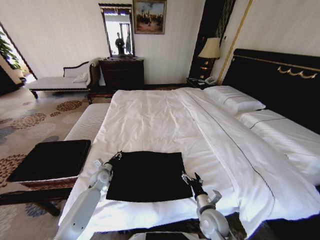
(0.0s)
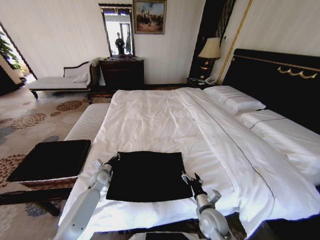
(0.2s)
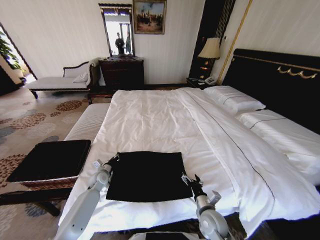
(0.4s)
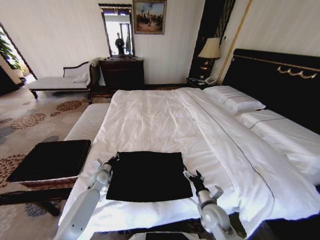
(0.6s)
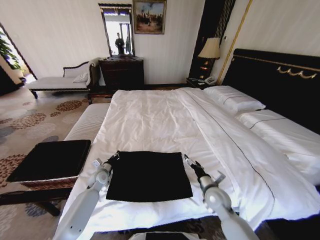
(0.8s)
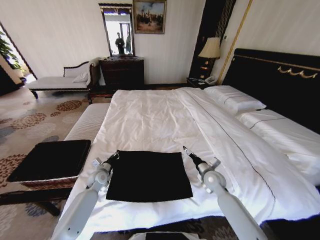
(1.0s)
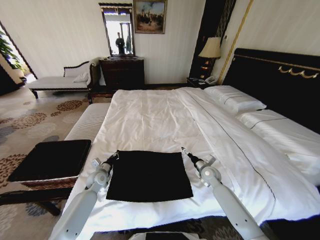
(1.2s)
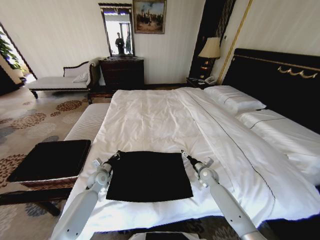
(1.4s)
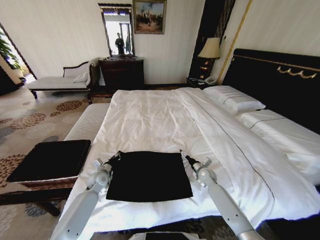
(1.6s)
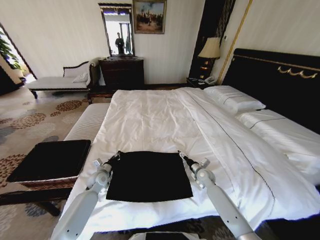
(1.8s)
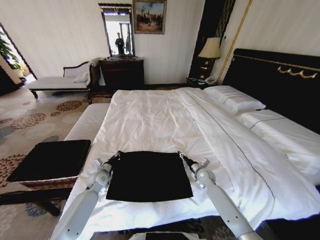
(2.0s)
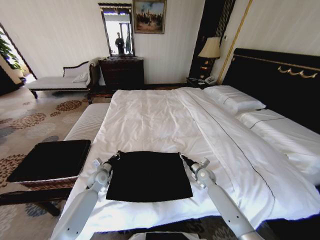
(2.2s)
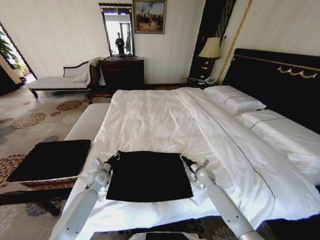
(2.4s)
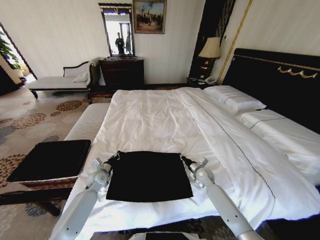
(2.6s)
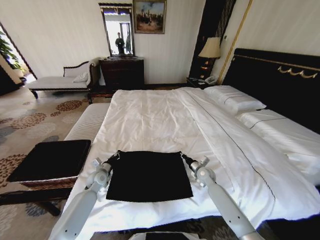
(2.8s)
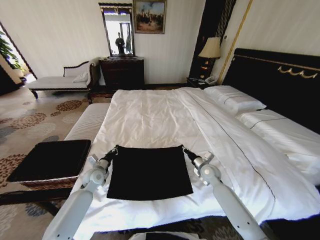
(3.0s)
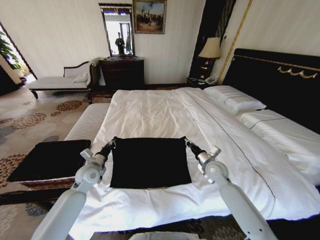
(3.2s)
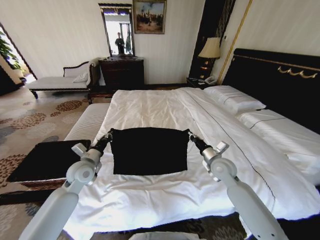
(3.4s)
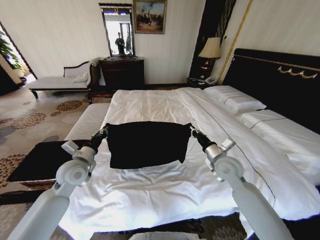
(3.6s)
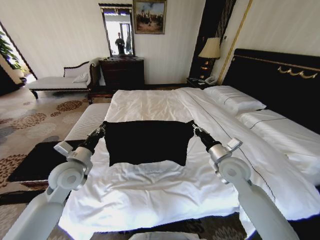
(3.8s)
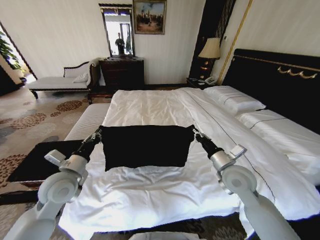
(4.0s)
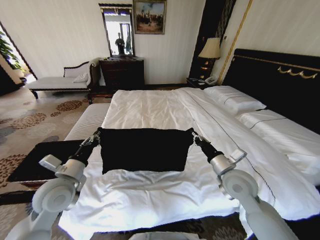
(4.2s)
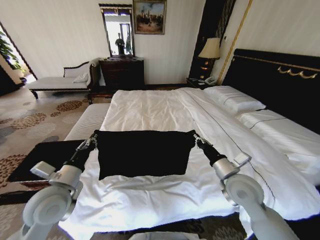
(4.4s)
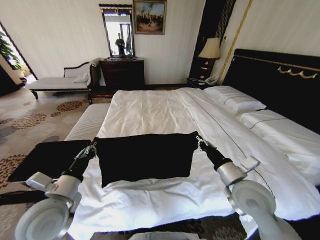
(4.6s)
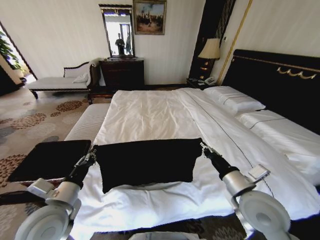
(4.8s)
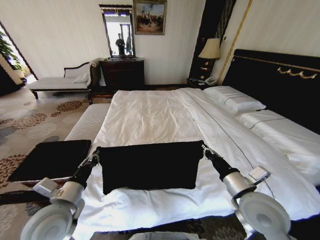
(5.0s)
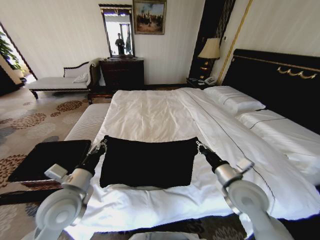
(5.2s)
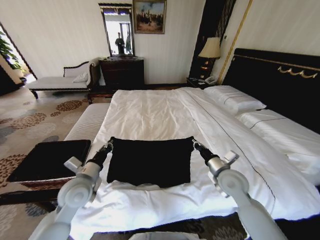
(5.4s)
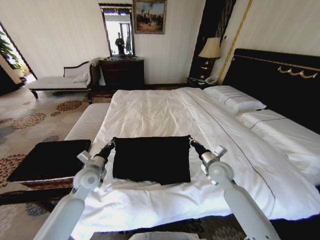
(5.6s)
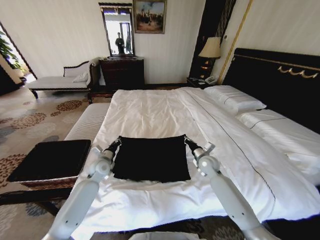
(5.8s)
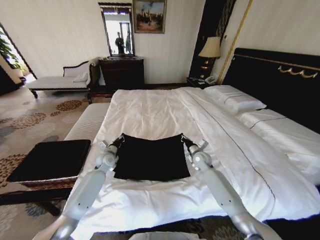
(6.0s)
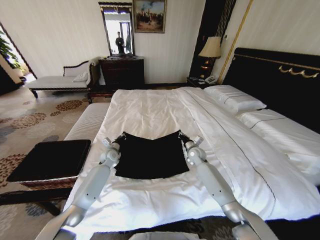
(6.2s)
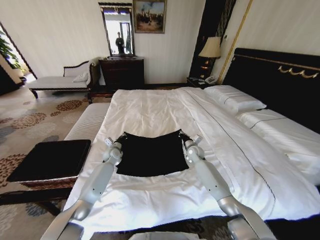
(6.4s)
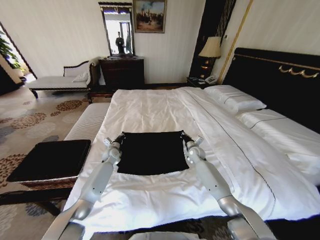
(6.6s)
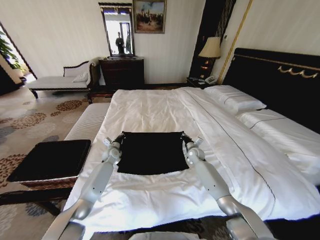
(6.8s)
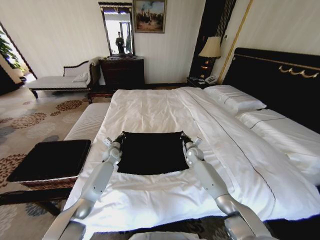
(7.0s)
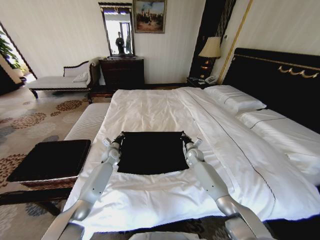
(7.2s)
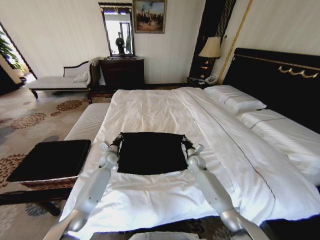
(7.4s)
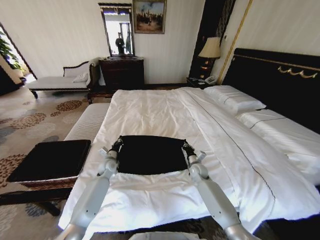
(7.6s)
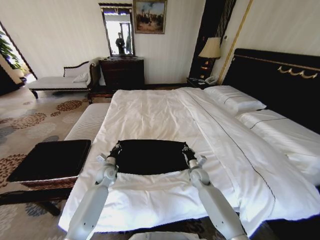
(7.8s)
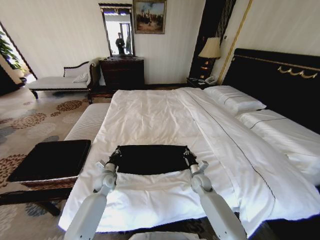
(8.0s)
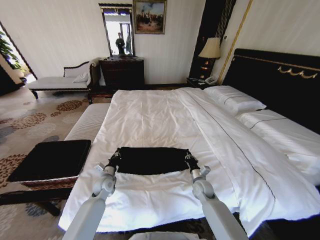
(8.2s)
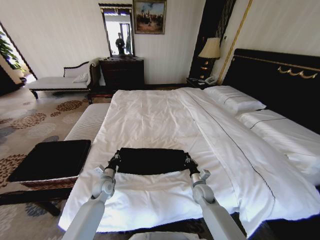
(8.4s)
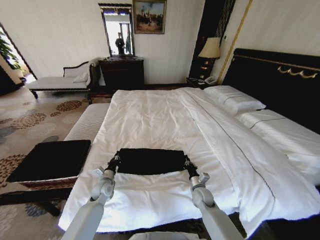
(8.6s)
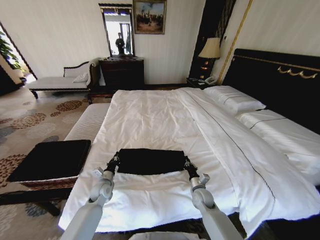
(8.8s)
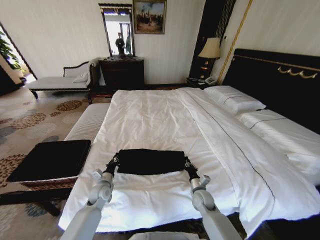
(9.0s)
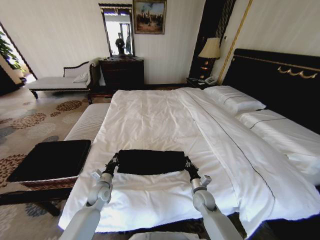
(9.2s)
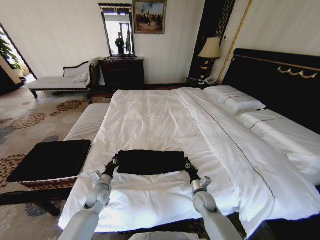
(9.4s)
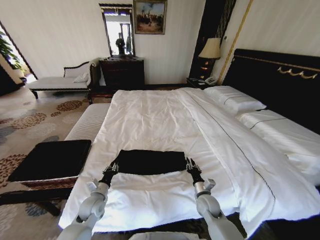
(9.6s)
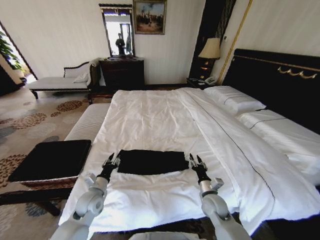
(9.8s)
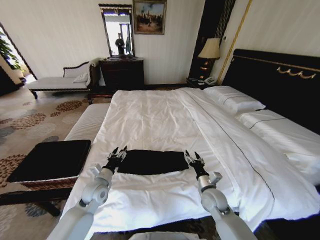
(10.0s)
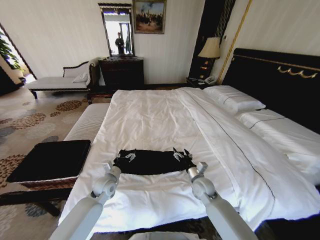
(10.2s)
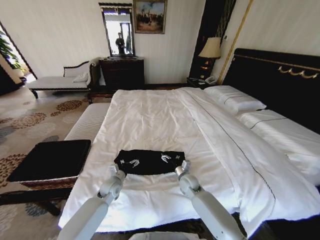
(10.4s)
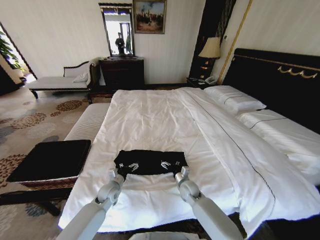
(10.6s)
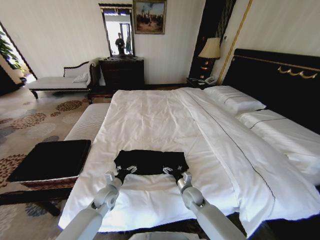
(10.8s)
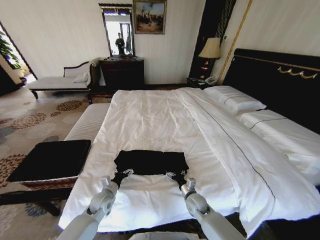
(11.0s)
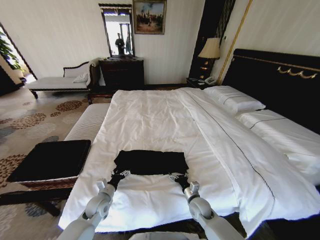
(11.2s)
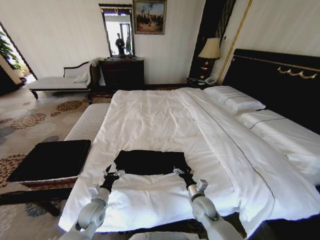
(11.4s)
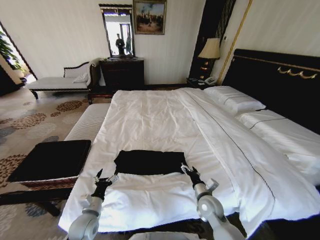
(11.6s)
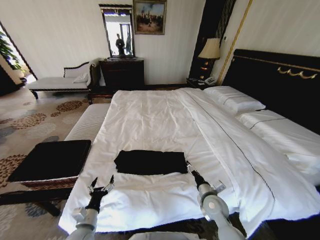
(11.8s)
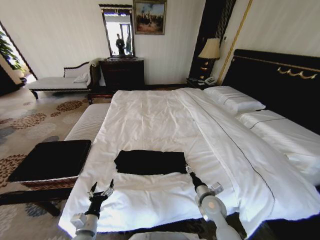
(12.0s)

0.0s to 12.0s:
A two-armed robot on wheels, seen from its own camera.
Task of the whole recording: Fold the clothes on the bed and place them into the basket.
0.0s to 1.6s: The right gripper goes roughly 20 cm forward. The left gripper closes.
1.6s to 3.0s: The right gripper travels upward by roughly 5 cm, and closes its fingers.
3.0s to 4.4s: The grippers both shift upward and backward by some 25 cm.
4.4s to 6.0s: The grippers both shift forward and downward by roughly 25 cm.
6.0s to 7.6s: The right gripper moves downward, roughly 10 cm. The left gripper goes forward and returns, approximately 5 cm each way.
7.6s to 9.0s: The two grippers go some 15 cm backward.
9.0s to 10.4s: The left gripper reaches roughly 5 cm backward, then returns, and opens. Meanwhile the right gripper travels forward and to the left by roughly 10 cm, and opens its fingers.
10.4s to 12.0s: The right gripper moves backward and to the right, approximately 15 cm. Meanwhile the left gripper goes some 20 cm backward.

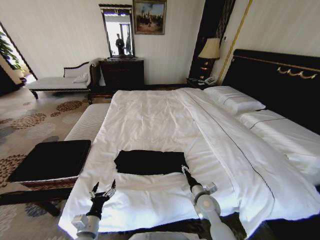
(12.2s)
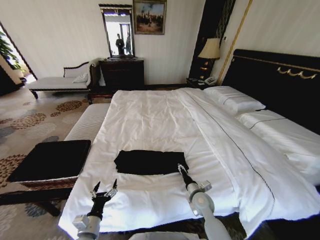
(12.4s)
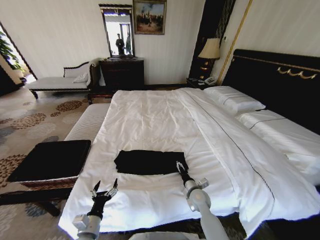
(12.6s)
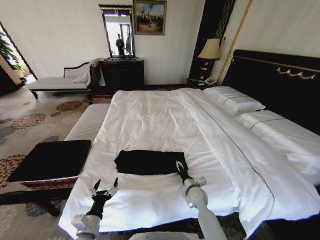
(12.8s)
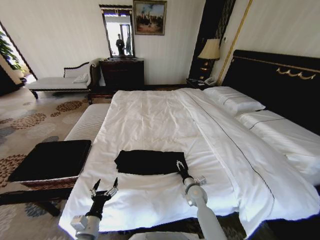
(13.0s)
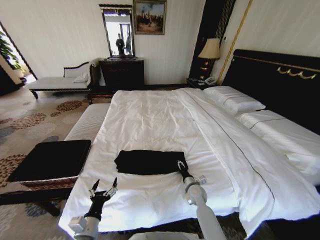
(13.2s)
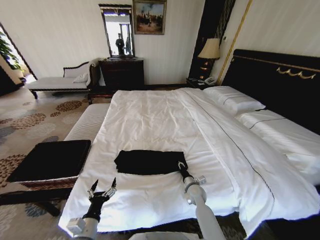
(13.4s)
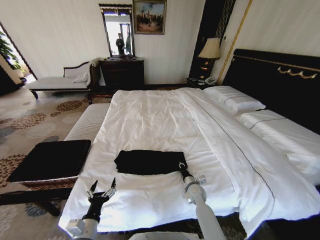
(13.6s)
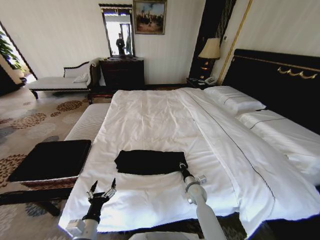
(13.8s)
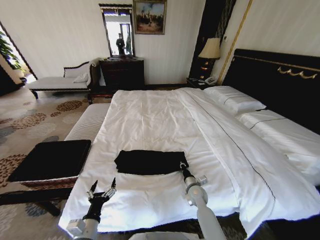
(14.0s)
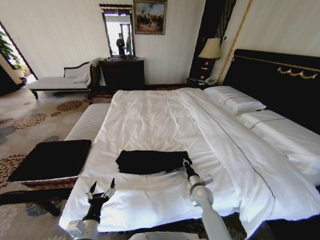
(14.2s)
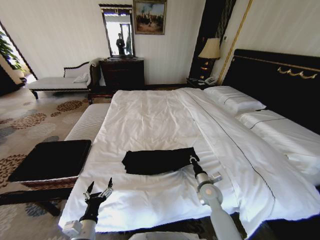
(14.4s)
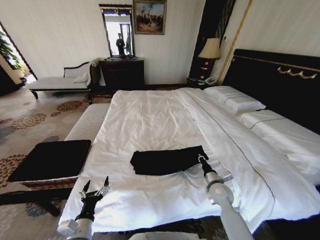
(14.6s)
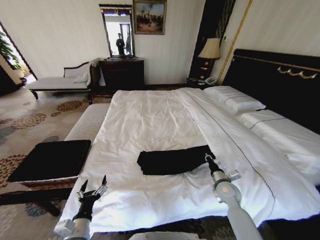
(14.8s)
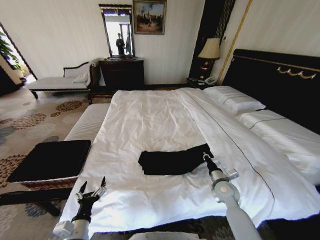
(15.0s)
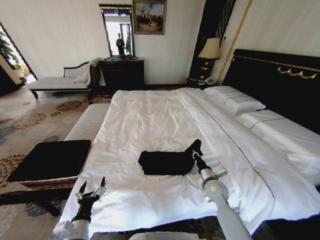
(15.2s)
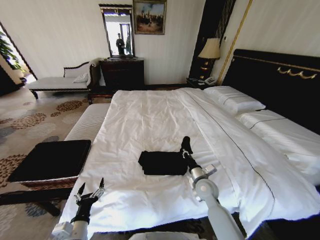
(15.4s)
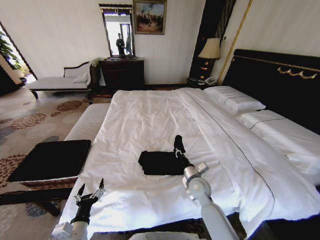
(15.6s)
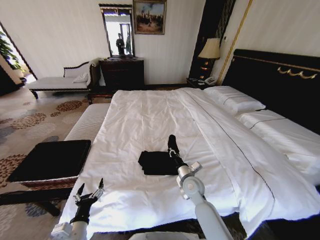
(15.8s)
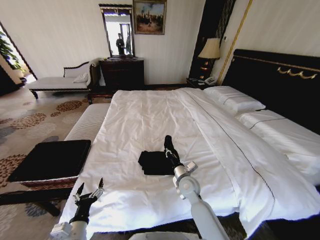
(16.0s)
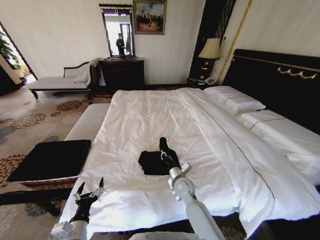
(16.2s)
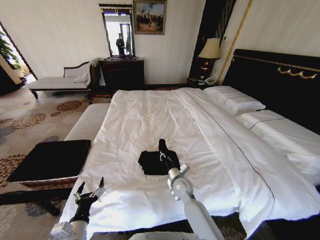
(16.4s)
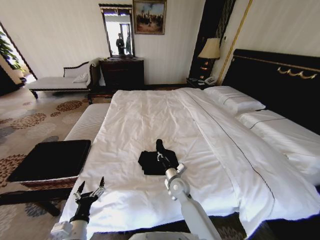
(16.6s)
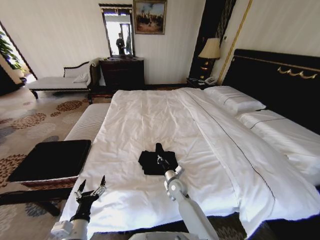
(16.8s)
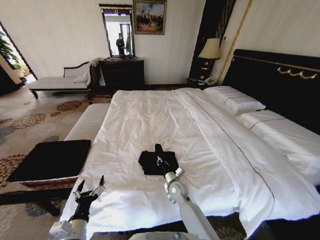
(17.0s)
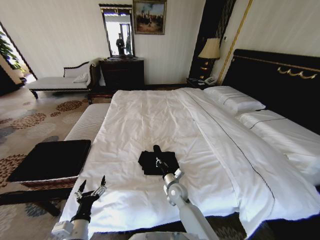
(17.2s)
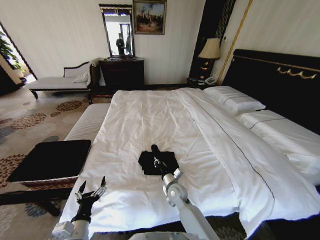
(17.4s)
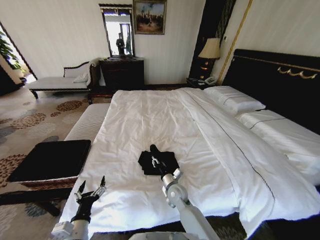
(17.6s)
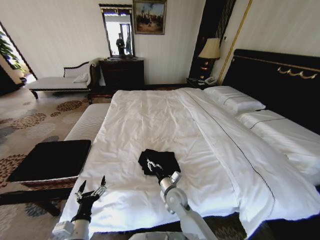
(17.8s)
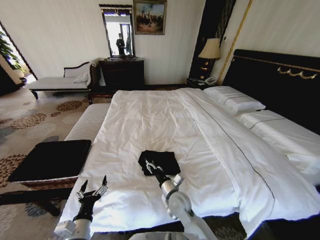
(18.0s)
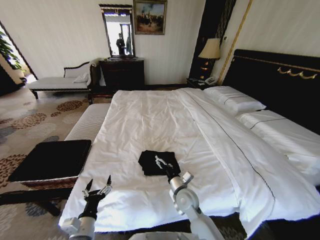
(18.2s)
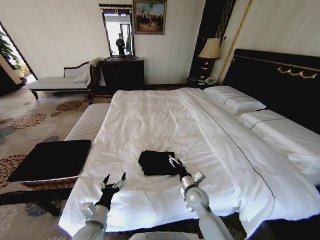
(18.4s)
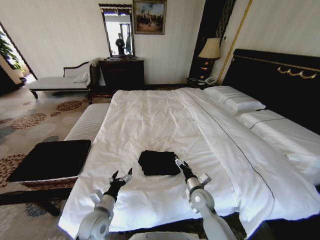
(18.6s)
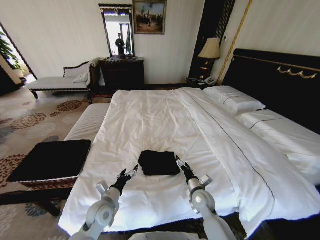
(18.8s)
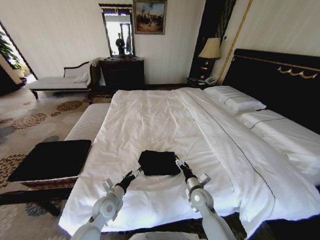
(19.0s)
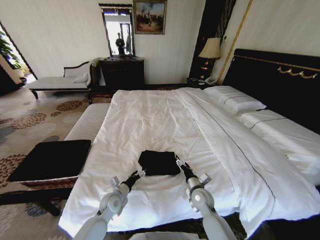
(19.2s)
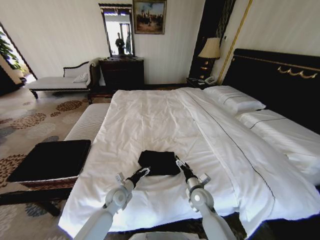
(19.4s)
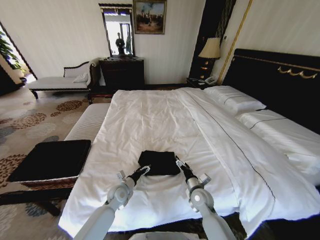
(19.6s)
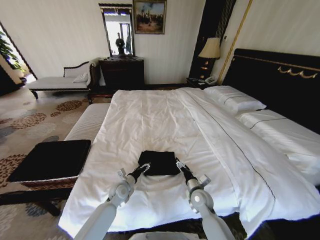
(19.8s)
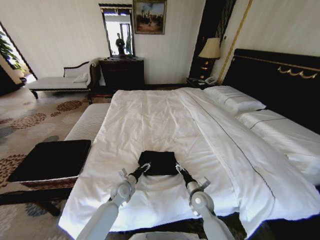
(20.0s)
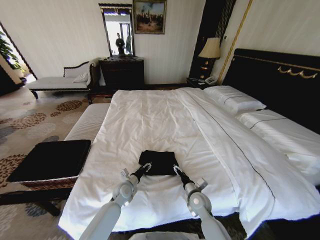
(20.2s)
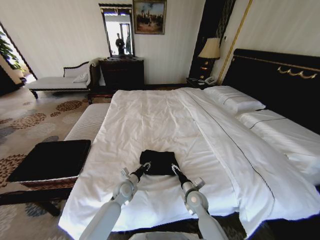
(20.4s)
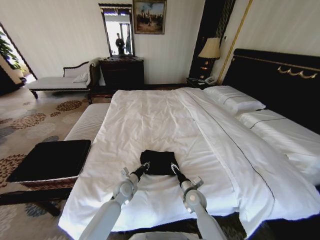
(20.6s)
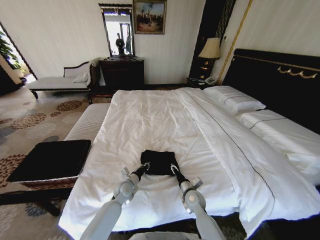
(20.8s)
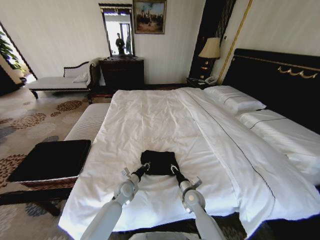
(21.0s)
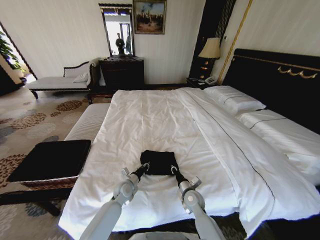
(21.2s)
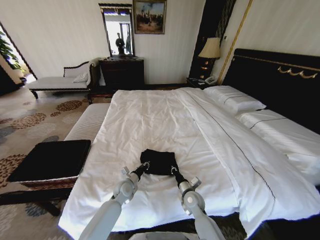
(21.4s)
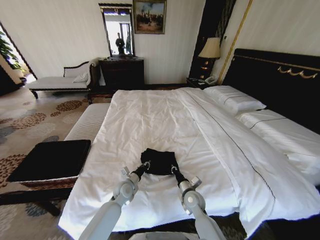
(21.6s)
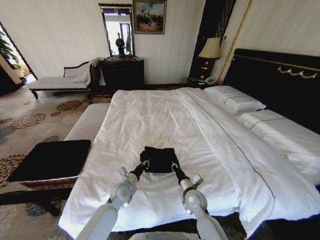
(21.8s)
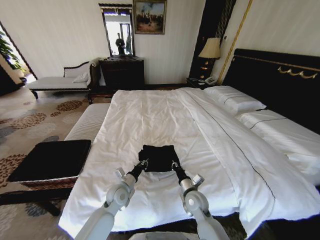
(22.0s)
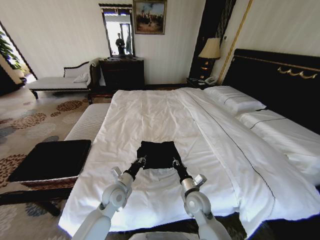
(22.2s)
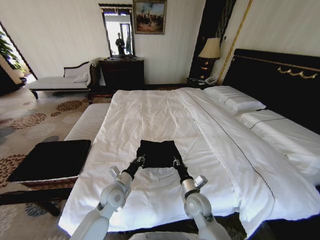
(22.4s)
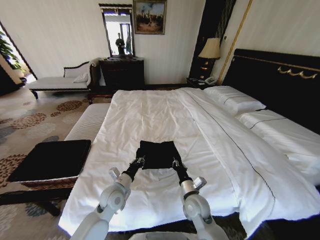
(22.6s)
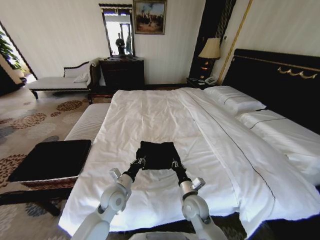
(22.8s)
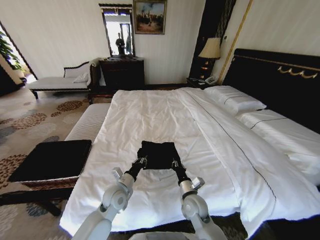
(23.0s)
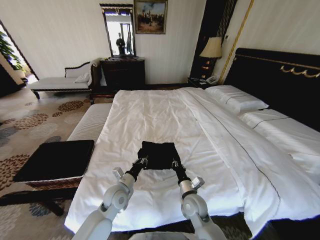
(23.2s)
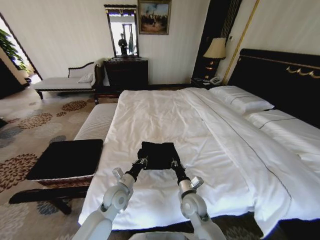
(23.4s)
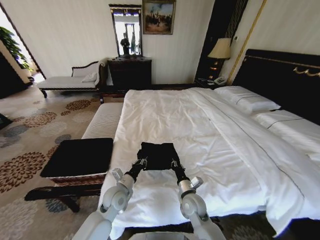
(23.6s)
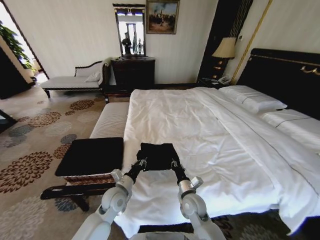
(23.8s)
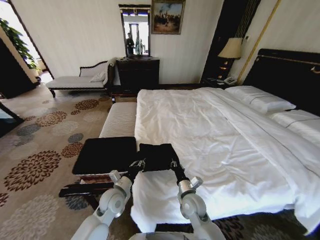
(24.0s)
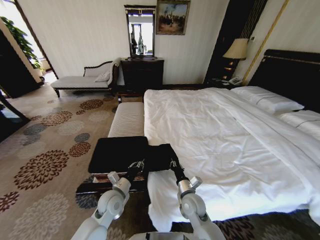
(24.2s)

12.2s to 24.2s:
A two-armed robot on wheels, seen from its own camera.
Task of the whole recording: Fold the clothes on the bed and place them into the basket.
12.2s to 13.8s: The left gripper moves approximately 5 cm, while the right gripper goes roughly 10 cm forward and downward, and closes up.
13.8s to 15.2s: The right gripper is displaced upward and to the right by approximately 10 cm.
15.2s to 16.6s: The right gripper heads to the left, covering approximately 15 cm.
16.6s to 18.2s: The right gripper is displaced backward by roughly 5 cm, and opens up.
18.2s to 19.8s: The right gripper shifts approximately 10 cm to the right. The left gripper travels forward by about 20 cm.
19.8s to 21.2s: The right gripper closes up. The left gripper closes its fingers.
21.2s to 22.6s: The right gripper is displaced upward by some 5 cm. Meanwhile the left gripper travels upward and backward by roughly 10 cm.
